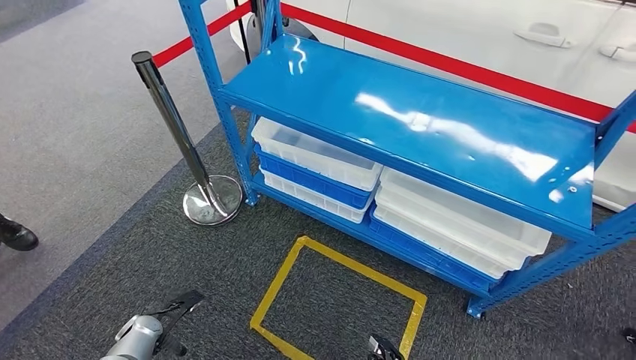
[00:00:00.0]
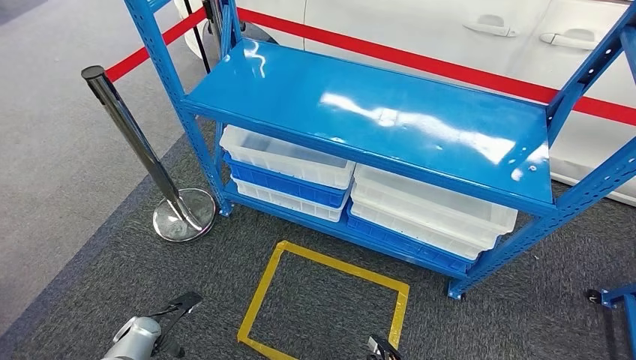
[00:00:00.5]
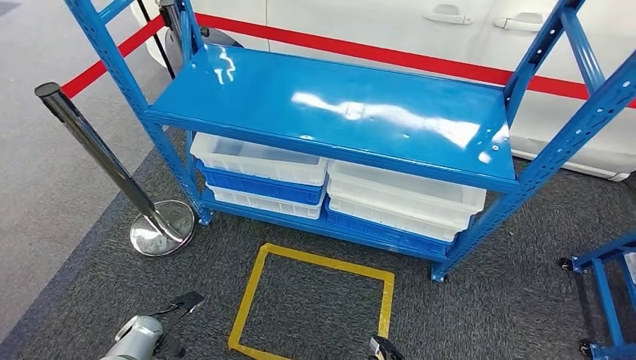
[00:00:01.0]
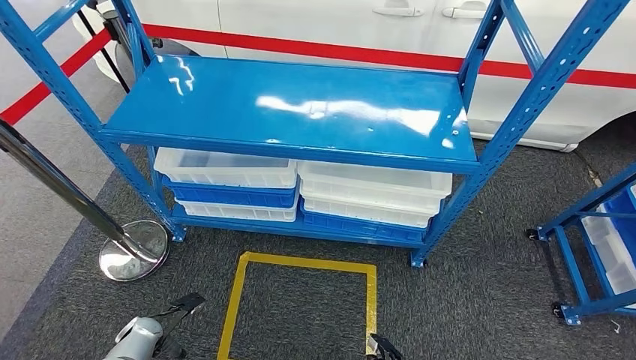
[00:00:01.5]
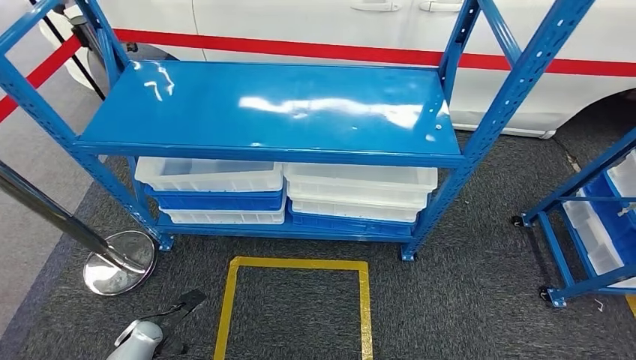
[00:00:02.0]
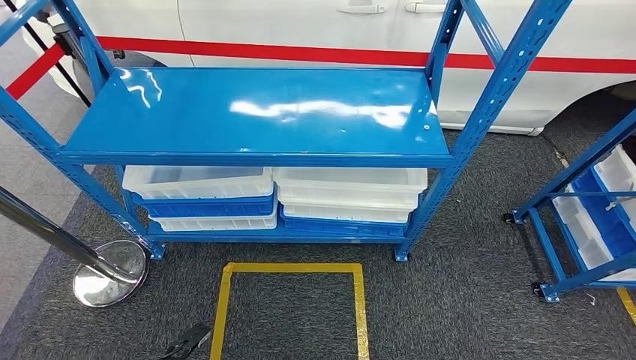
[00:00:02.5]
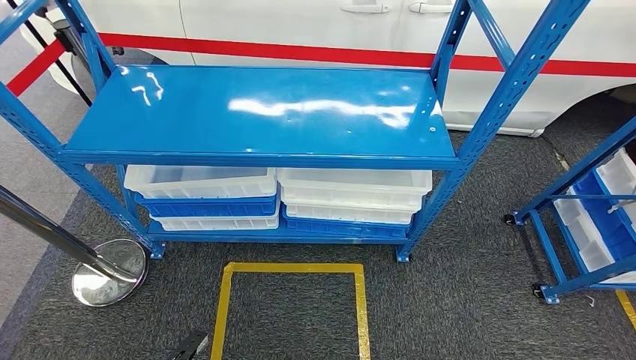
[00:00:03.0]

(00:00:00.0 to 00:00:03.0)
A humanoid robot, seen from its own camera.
Step, 00:00:00.0 - 00:00:03.0: Move to the initial position of the shelf.
